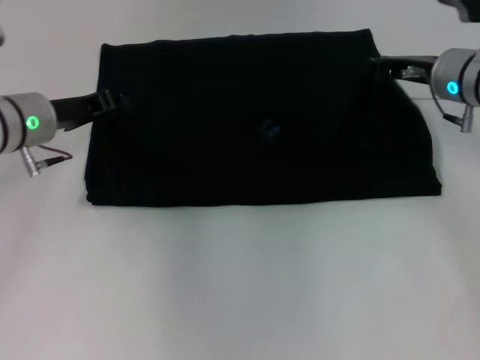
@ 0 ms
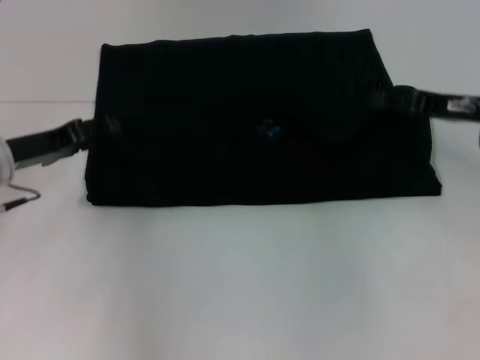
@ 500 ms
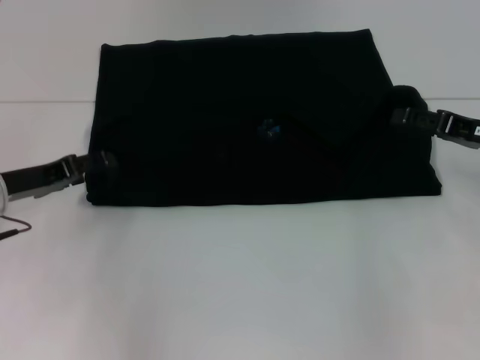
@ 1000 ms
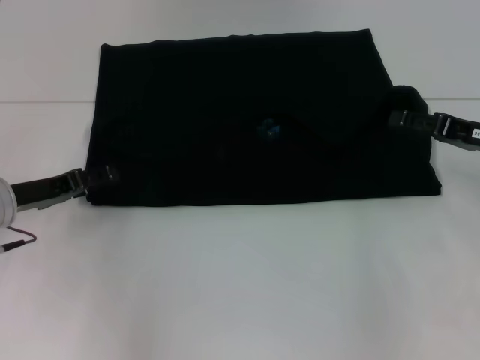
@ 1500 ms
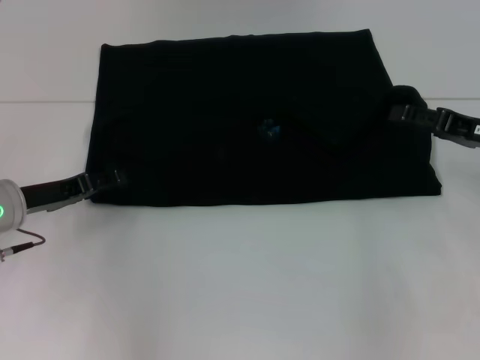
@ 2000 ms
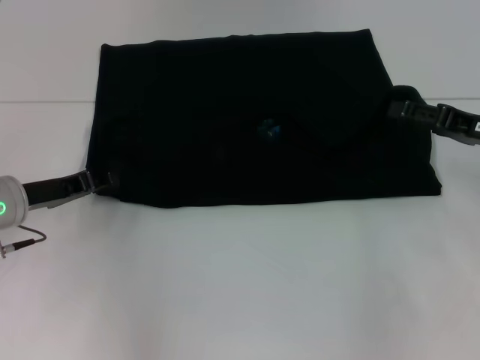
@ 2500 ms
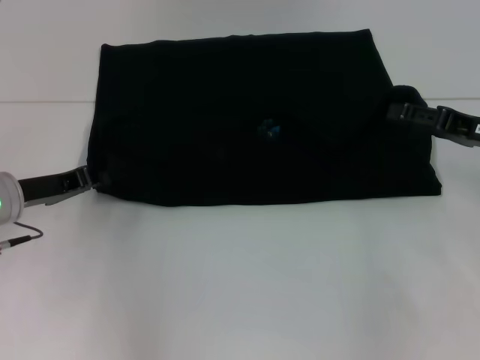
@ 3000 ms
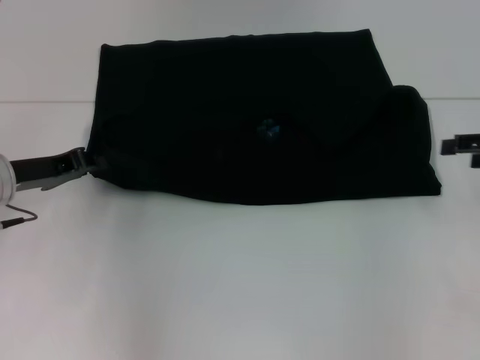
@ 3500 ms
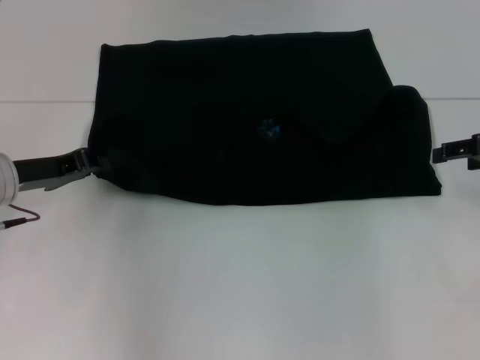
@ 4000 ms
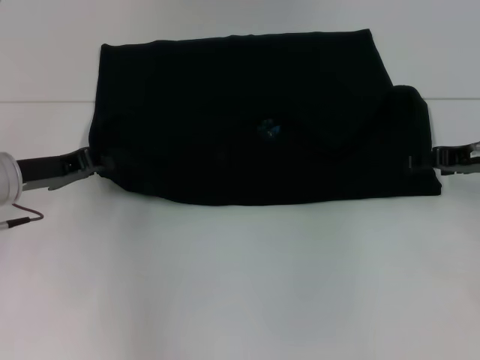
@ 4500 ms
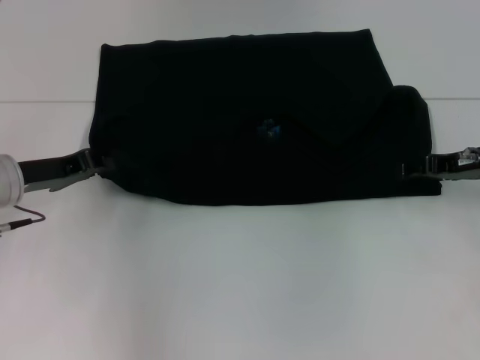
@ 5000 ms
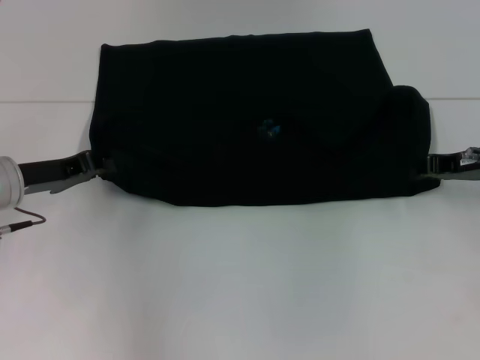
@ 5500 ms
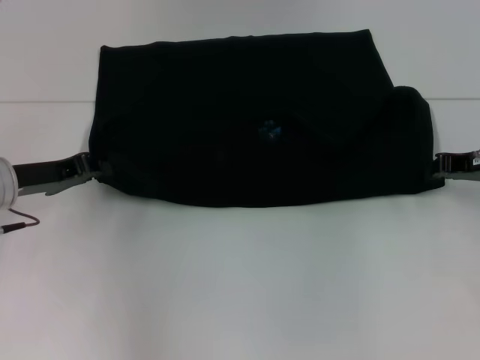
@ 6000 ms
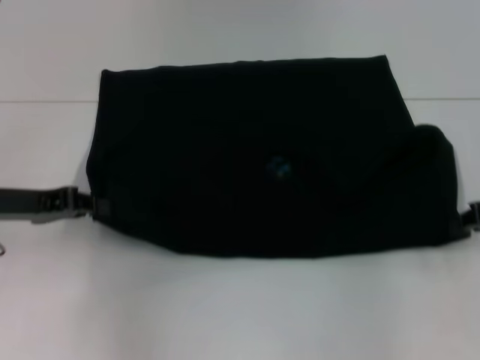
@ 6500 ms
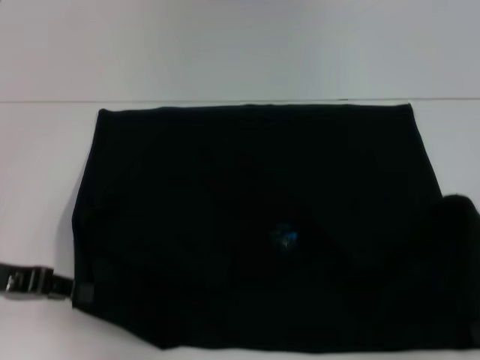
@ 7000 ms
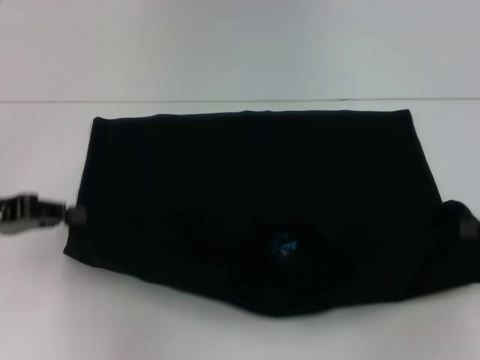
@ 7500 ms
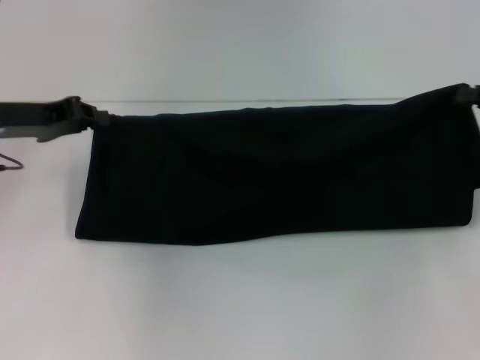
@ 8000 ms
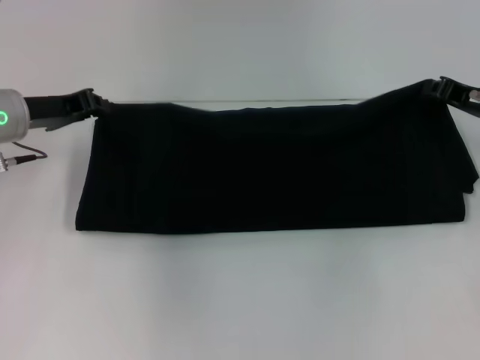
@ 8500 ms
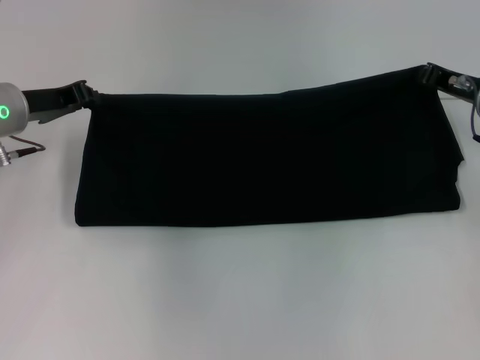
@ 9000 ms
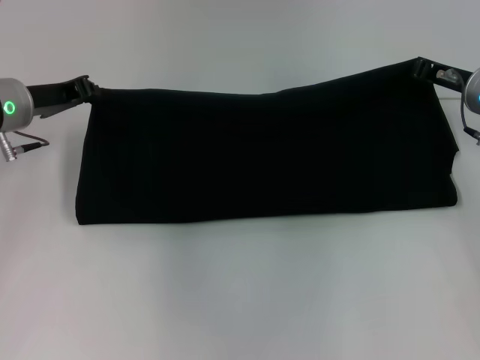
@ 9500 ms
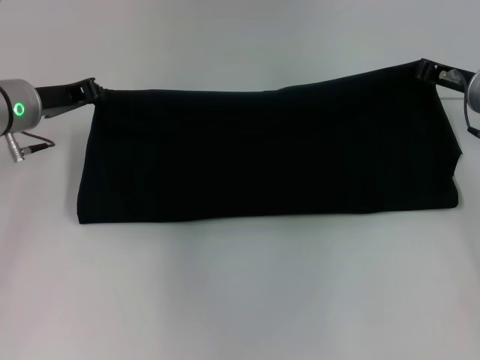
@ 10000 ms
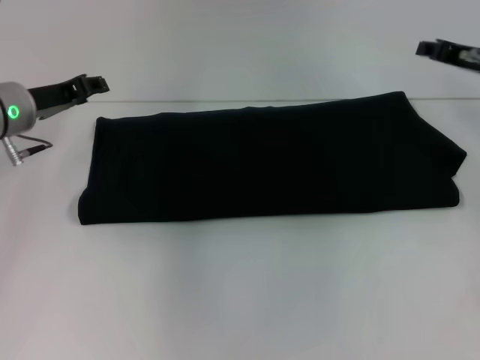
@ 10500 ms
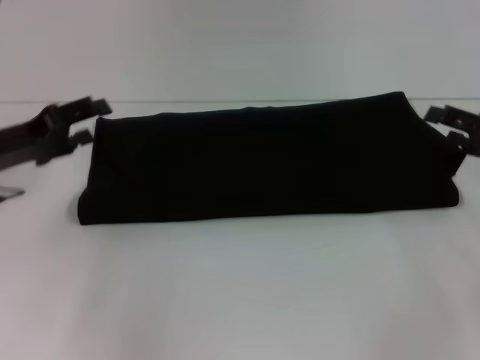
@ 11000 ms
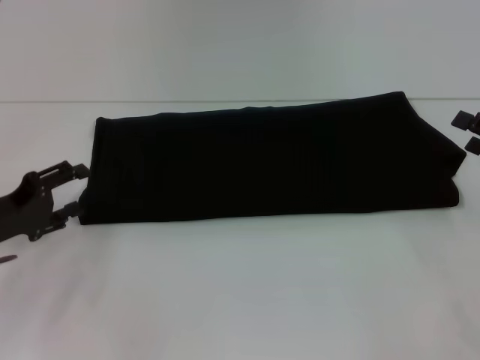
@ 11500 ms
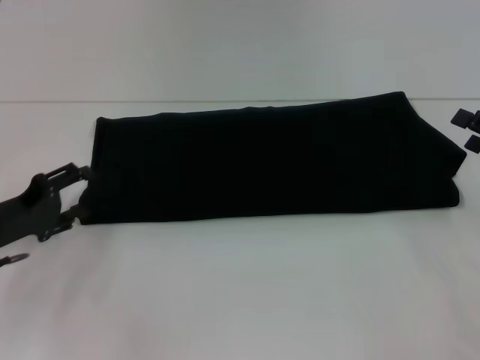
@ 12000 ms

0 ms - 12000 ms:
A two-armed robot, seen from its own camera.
Step, 500 ms - 7000 ms: Pull the clothes with your left hand.
Step, 500 ms - 7000 ms: Pull the clothes with your right hand.
Step, 7500 ms - 10000 ms: Fold the clothes with your right hand.
0 ms - 2000 ms: The right gripper moves backward and to the right, roughly 10 cm, and opens up. Meanwhile the left gripper moves backward and downward, some 10 cm, and opens its fingers.
2000 ms - 4000 ms: The left gripper closes.
4000 ms - 6000 ms: The right gripper shifts by some 5 cm, and closes its fingers.
6000 ms - 8000 ms: The left gripper goes approximately 5 cm upward, and reaches about 10 cm backward, then returns. Meanwhile the right gripper reaches roughly 15 cm backward, then returns.
8000 ms - 10000 ms: The right gripper heads to the left and forward, covering some 10 cm. Meanwhile the left gripper ends up approximately 5 cm from where it was.
10000 ms - 12000 ms: The right gripper travels backward and to the right by some 15 cm, and opens its fingers; the left gripper is displaced backward, downward and to the left by approximately 15 cm, and opens up.

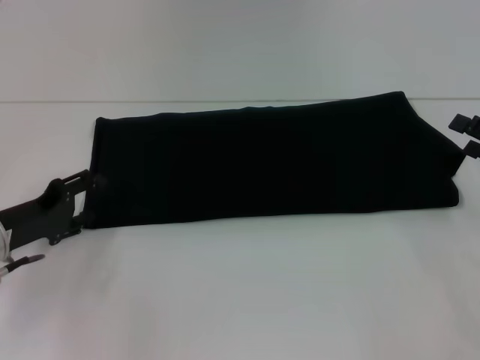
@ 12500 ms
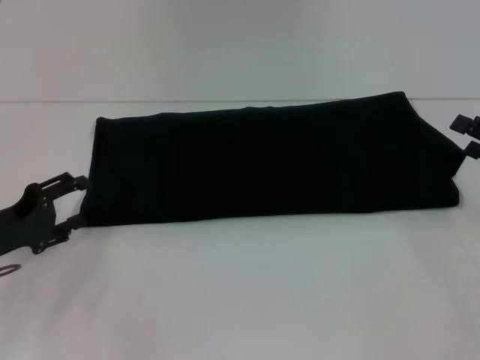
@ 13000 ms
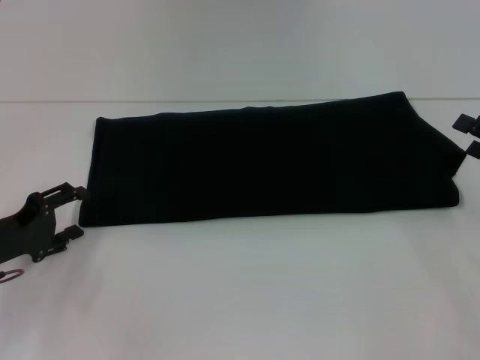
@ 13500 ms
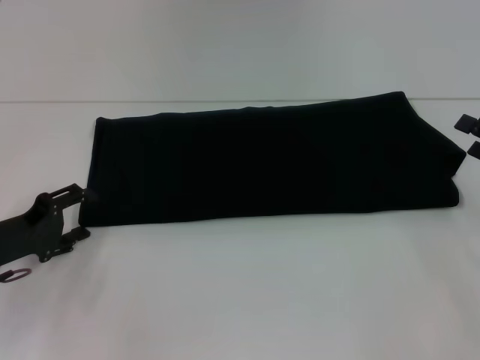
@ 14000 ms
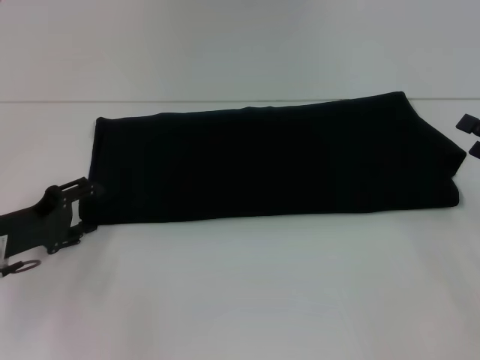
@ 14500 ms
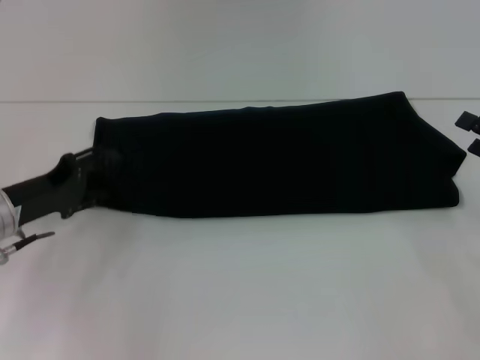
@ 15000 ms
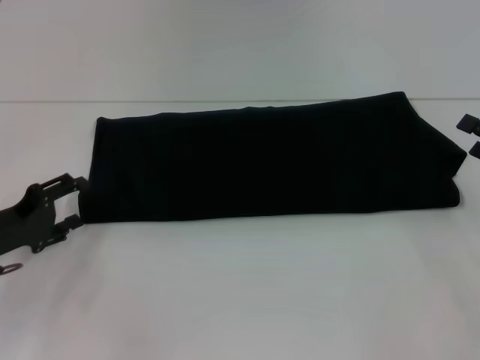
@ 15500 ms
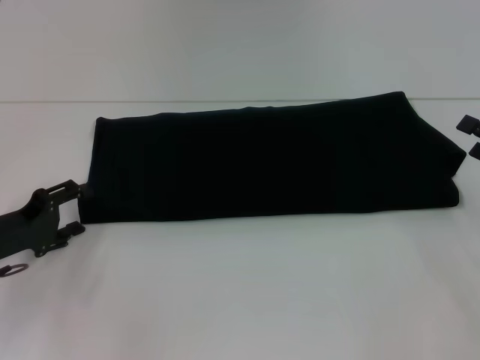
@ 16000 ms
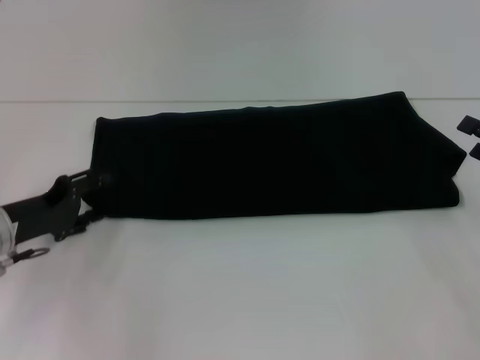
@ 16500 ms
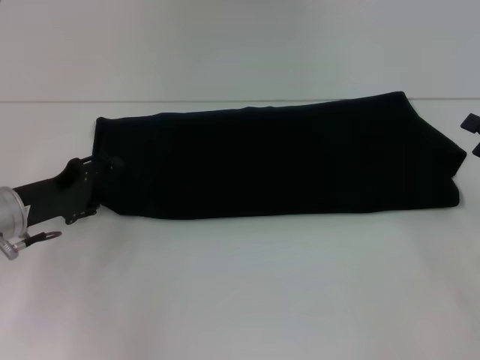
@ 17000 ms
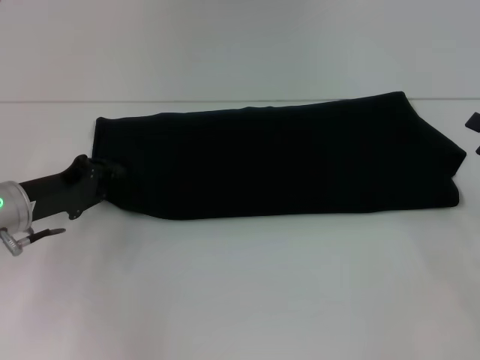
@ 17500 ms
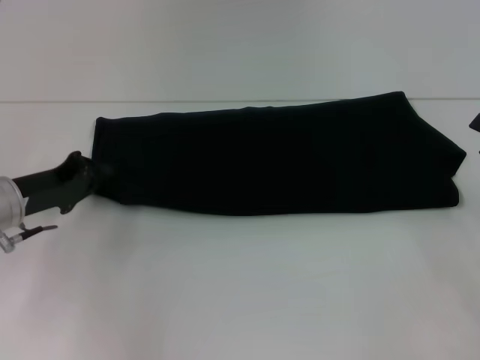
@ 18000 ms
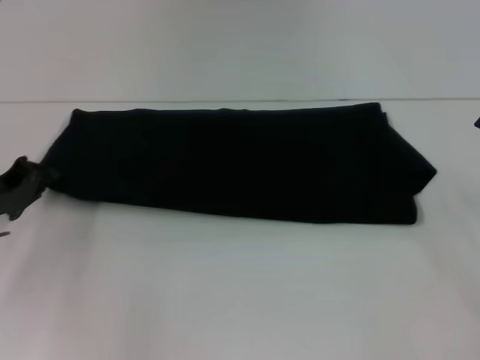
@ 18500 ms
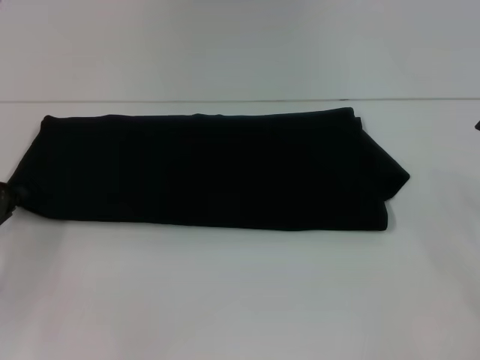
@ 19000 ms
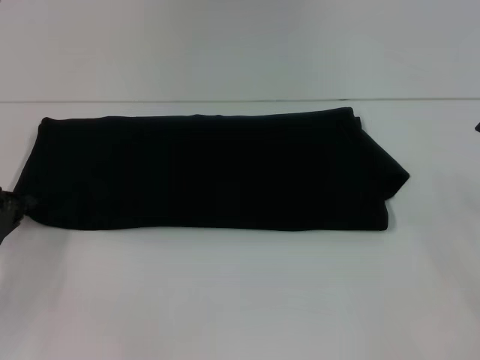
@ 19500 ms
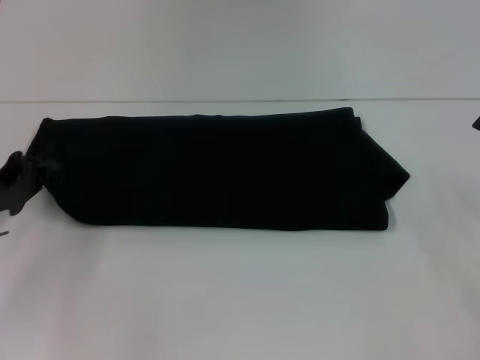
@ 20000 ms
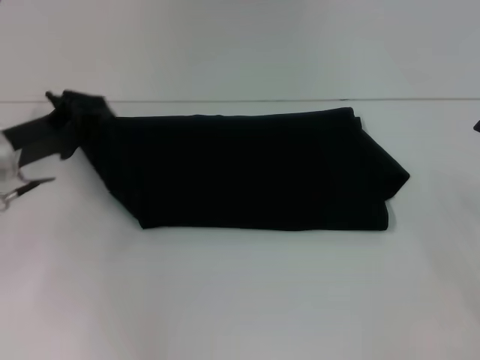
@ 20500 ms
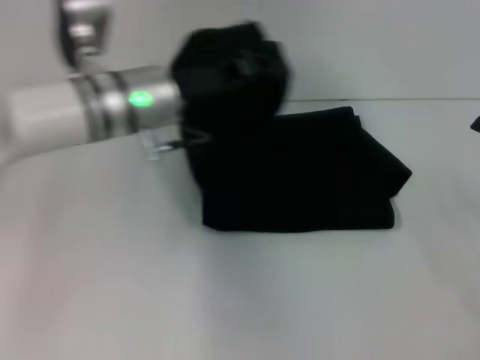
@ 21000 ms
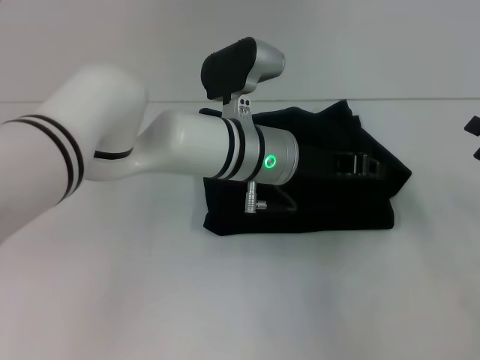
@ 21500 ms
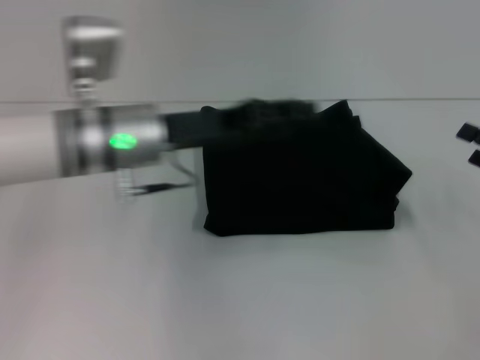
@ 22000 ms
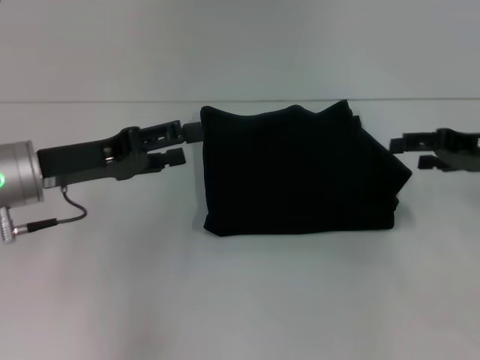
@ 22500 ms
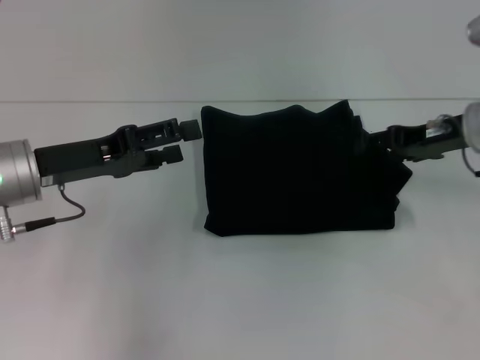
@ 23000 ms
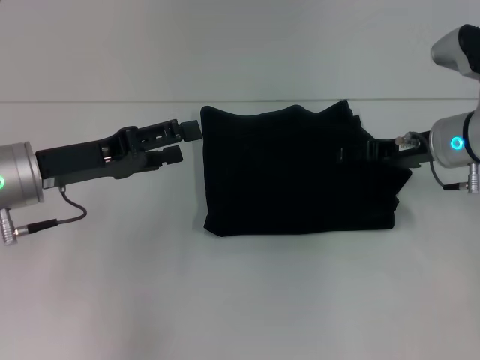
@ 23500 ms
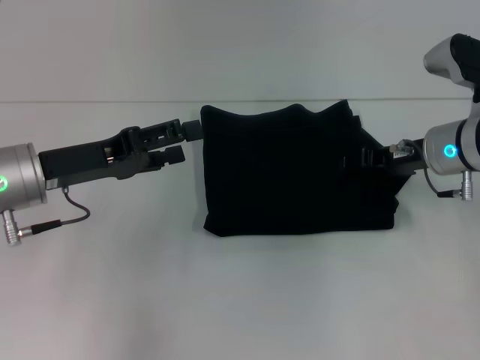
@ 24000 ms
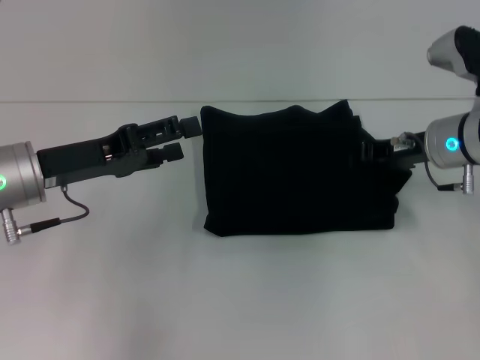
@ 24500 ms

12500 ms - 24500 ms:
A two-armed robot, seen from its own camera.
Step, 12500 ms - 21500 ms: Fold the clothes with your left hand.
12500 ms - 16500 ms: The grippers stay close to where they were, moving slightly.
16500 ms - 18500 ms: The left gripper closes.
18500 ms - 20500 ms: The left gripper moves about 5 cm.
20500 ms - 22500 ms: The right gripper is displaced forward and to the left by approximately 10 cm, while the left gripper goes to the right and returns, some 25 cm each way, and opens up.
22500 ms - 24500 ms: The right gripper moves to the left, about 10 cm, and closes.

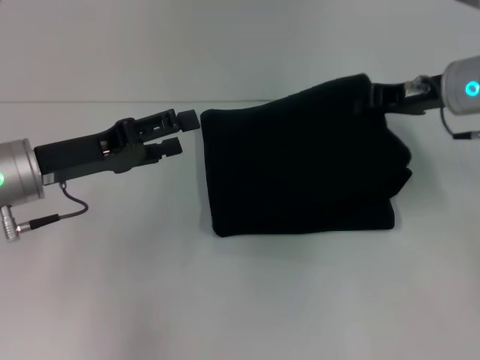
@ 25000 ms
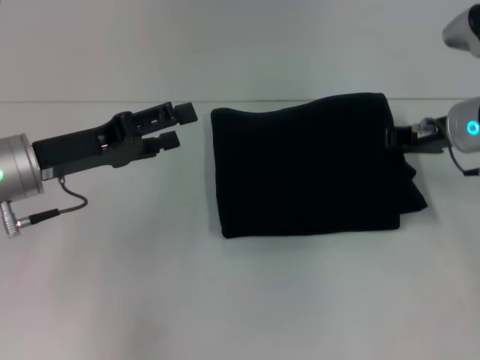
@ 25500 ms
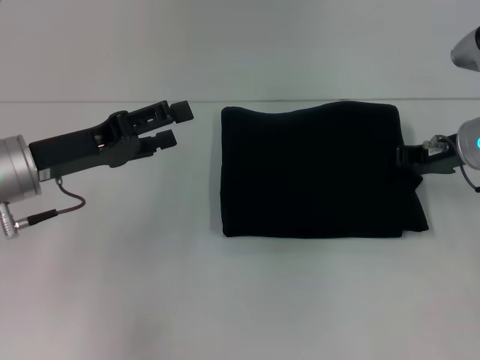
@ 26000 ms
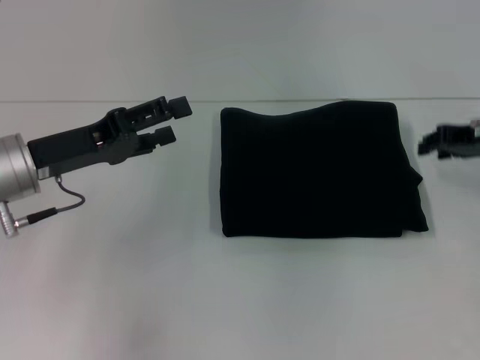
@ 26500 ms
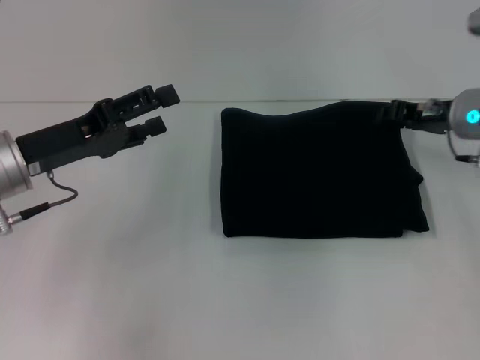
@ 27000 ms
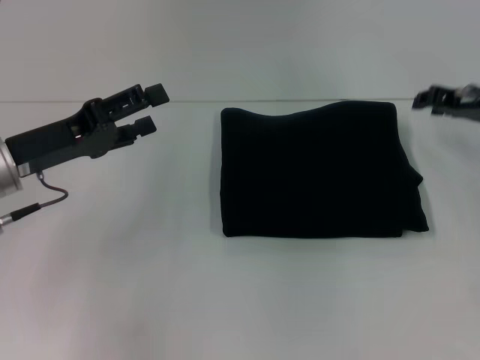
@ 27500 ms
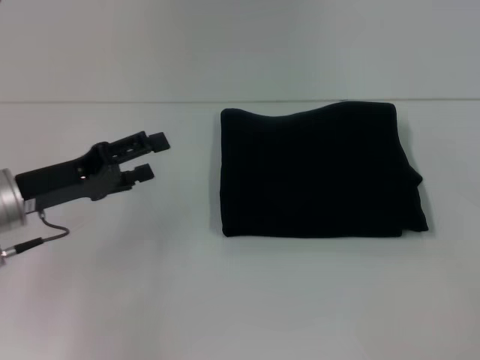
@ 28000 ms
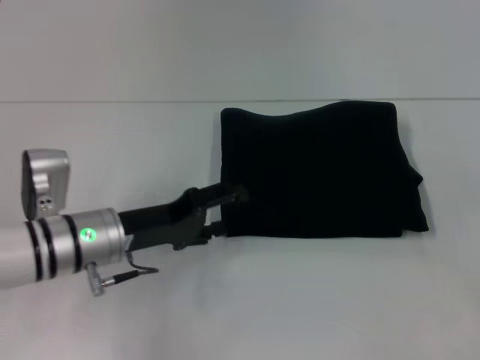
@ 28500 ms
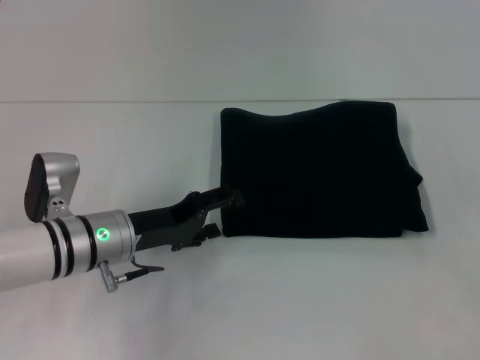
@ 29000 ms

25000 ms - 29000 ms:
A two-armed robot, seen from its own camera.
25000 ms - 27000 ms: The right gripper moves downward, about 5 cm, and opens.
27000 ms - 29000 ms: The left gripper moves downward and to the right, some 10 cm. The right gripper goes about 20 cm backward and to the right, and opens.